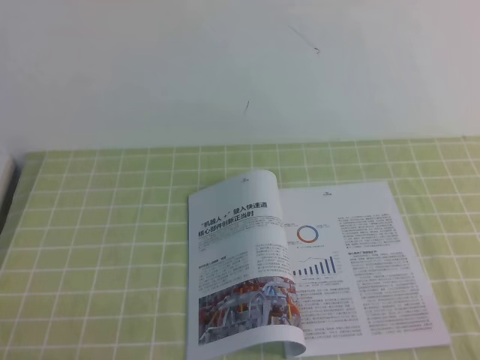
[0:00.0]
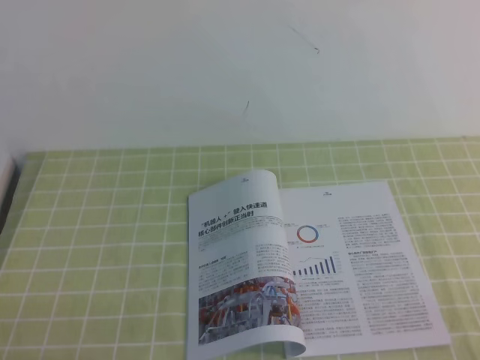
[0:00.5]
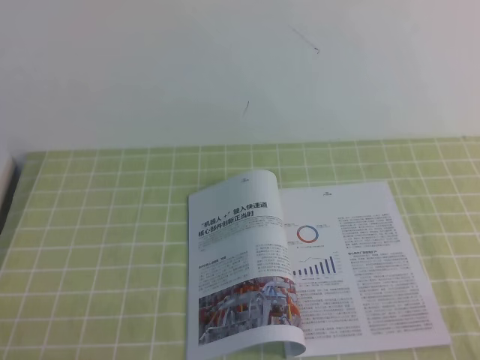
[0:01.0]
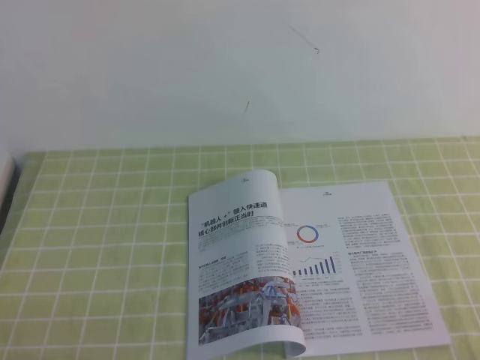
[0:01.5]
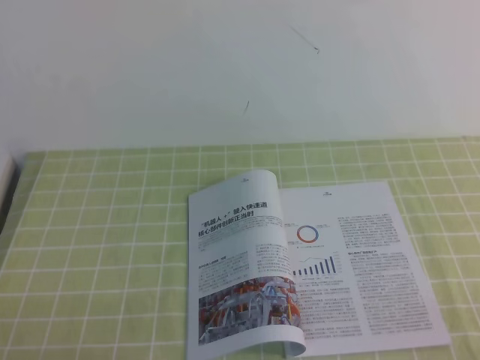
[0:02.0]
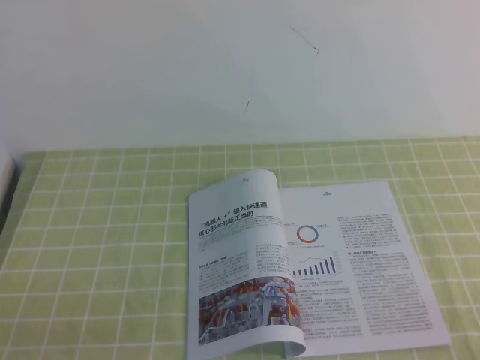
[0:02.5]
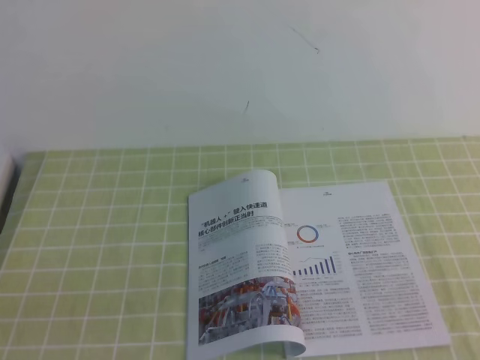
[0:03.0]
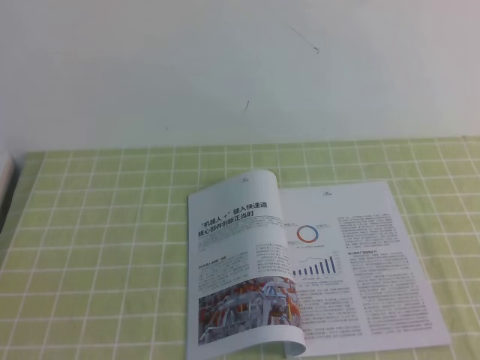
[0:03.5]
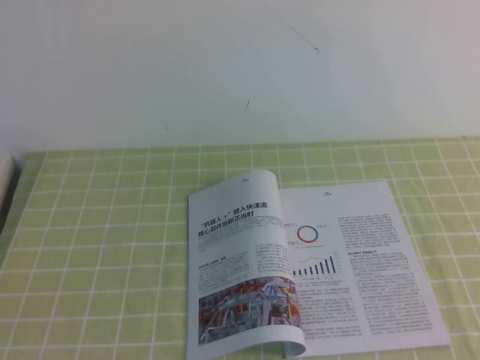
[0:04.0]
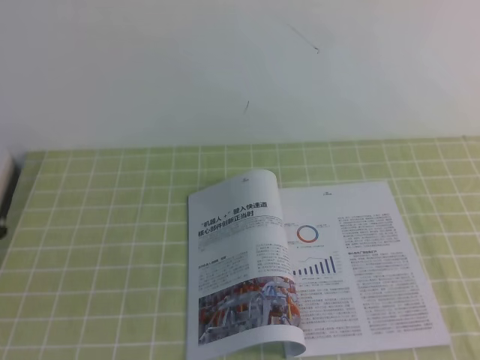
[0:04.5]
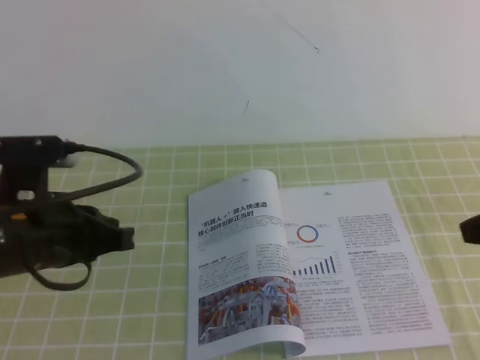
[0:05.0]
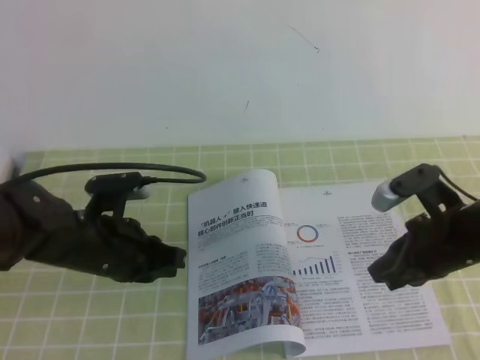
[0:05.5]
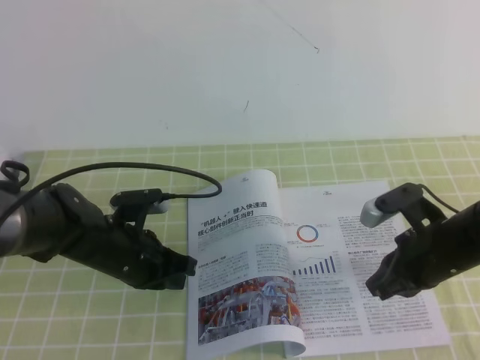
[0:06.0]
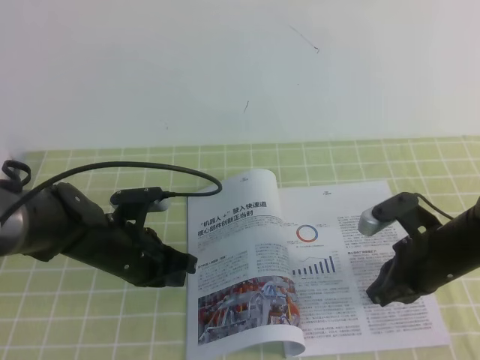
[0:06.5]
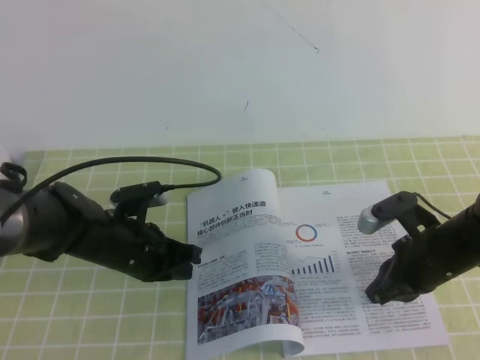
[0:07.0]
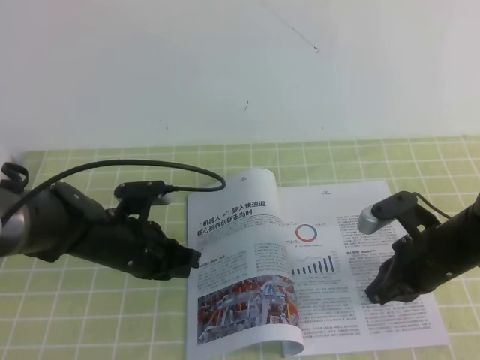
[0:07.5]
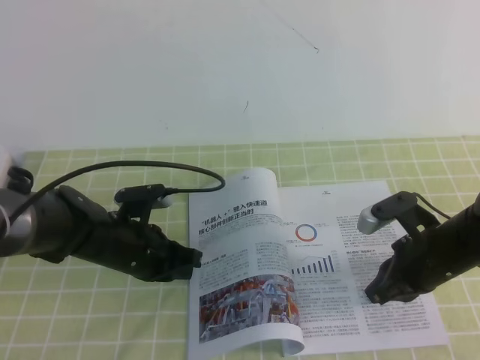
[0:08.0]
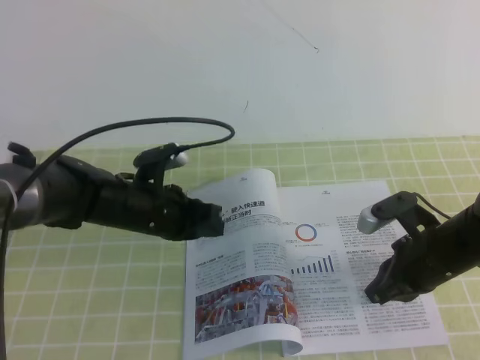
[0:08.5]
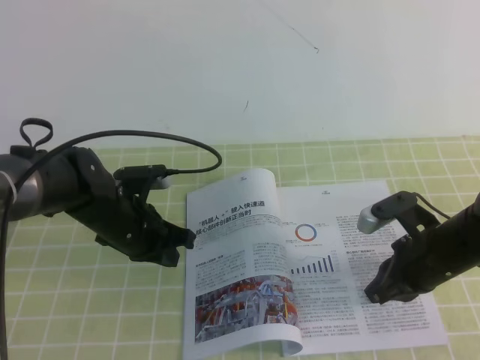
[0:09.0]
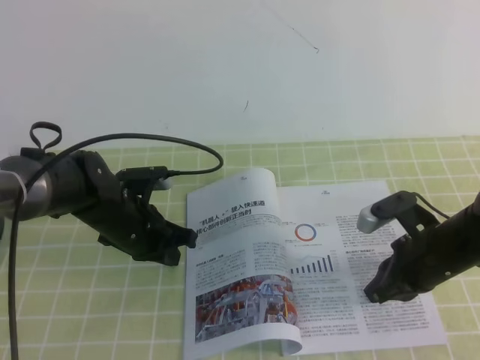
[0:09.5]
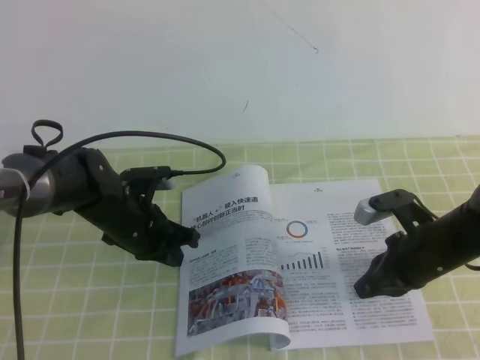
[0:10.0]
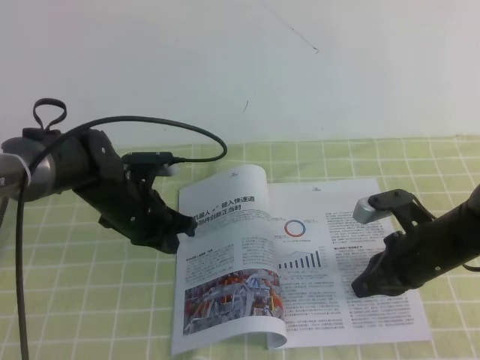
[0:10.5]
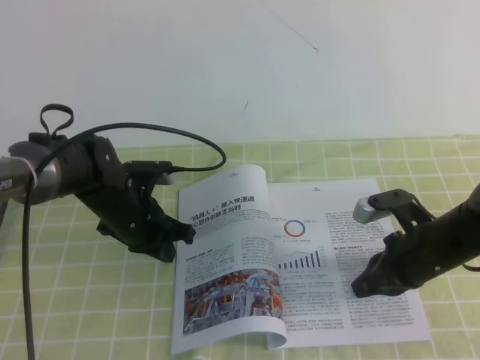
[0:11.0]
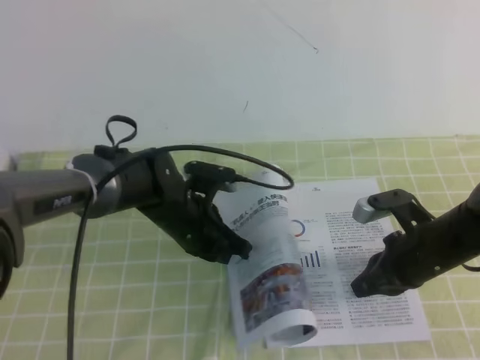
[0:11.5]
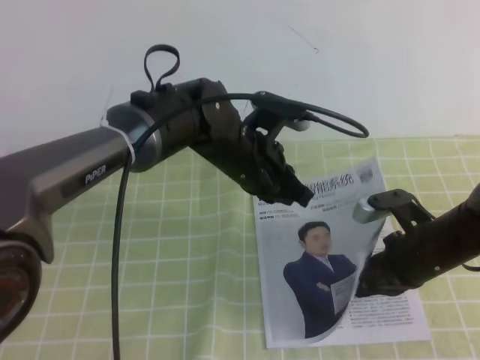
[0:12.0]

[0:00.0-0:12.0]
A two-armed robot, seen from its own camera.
Task of the whole recording: on the green tablecloth, hold the book with one hand and close it with the other.
0:04.0 to 0:06.0: The left gripper is displaced forward and downward by approximately 40 cm. Meanwhile the right gripper moves downward and forward, approximately 40 cm.
0:06.0 to 0:10.0: The grippers stay close to where they were, moving slightly.
0:10.0 to 0:12.0: The left gripper heads to the right and upward, covering some 15 cm.

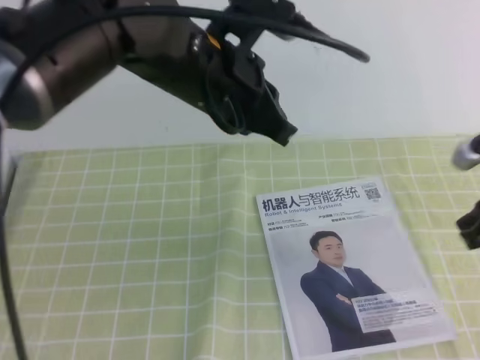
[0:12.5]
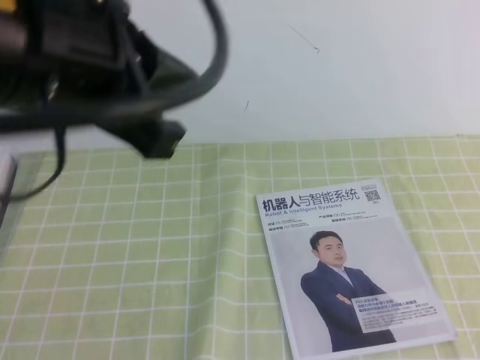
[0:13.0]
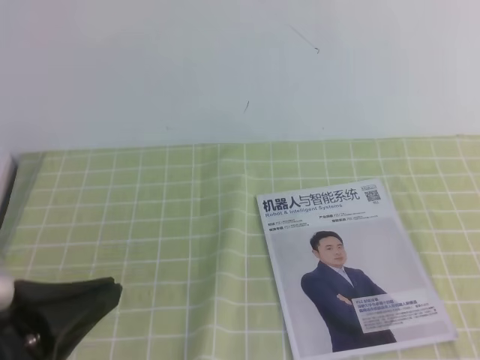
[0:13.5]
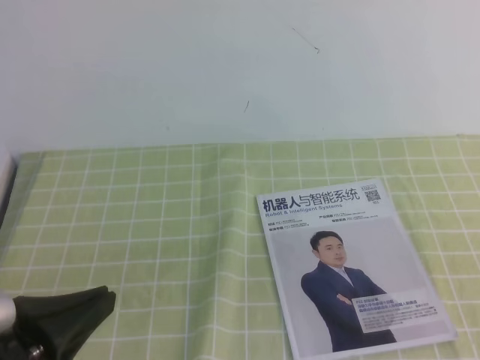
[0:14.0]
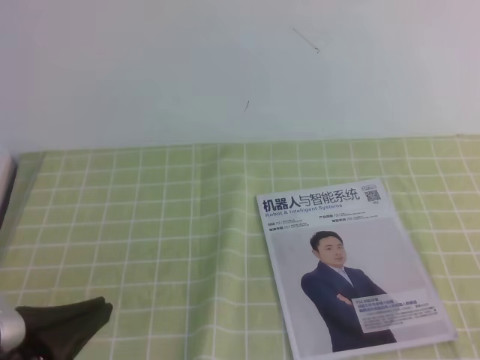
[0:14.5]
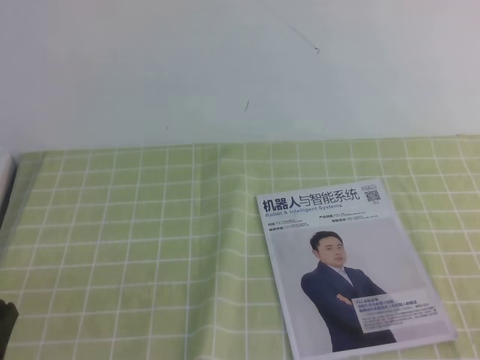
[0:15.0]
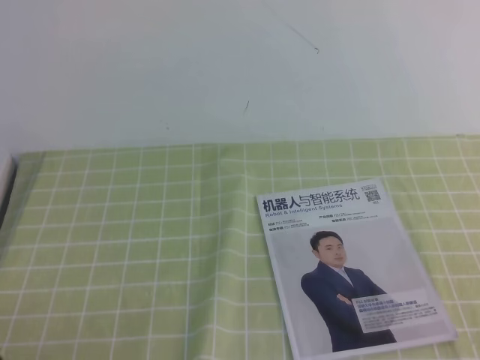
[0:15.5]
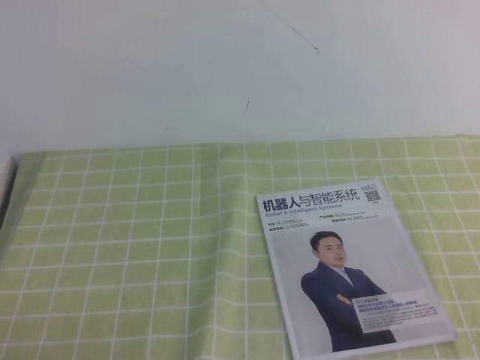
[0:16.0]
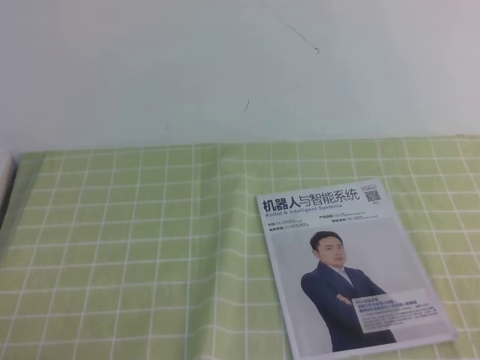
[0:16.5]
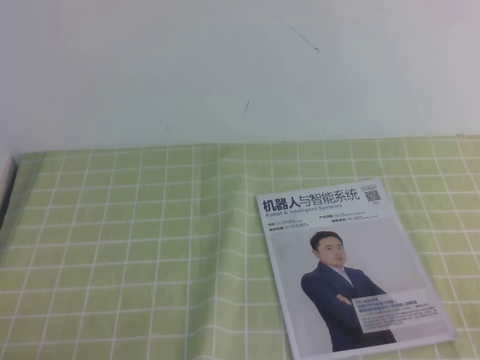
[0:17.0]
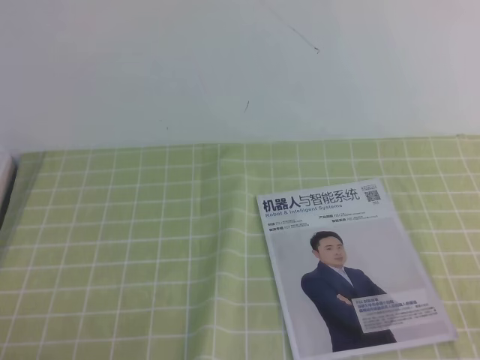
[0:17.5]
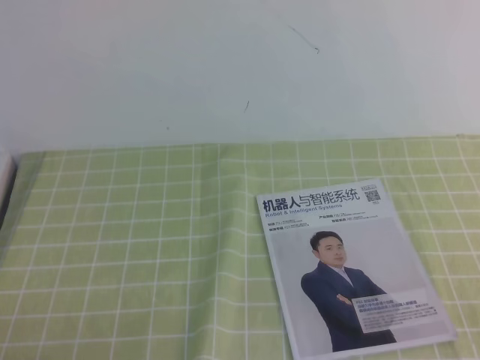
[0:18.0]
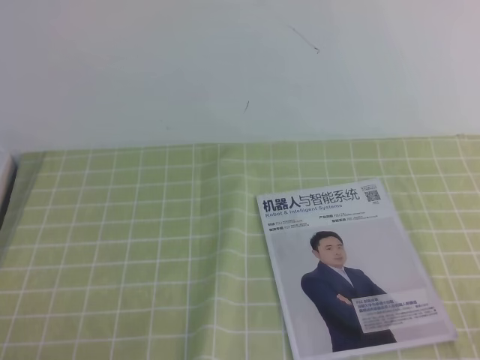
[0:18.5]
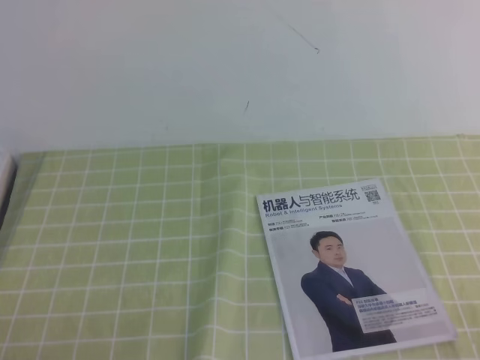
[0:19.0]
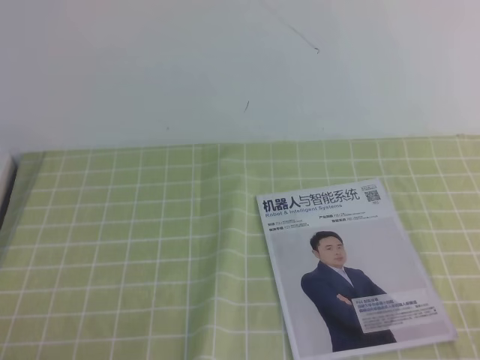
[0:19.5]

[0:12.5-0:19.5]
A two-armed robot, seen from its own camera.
Task of the whole recording: on the green tablecloth, hold the book with one hand and close it with the other.
Step, 0:12.5 to 0:19.5: Close the open book.
0:12.5 to 0:14.5: The right gripper heads backward, covering roughly 25 cm. Meanwhile the left gripper goes approximately 30 cm backward and to the left.
0:14.5 to 0:16.0: The left gripper travels downward and to the left by approximately 15 cm.
